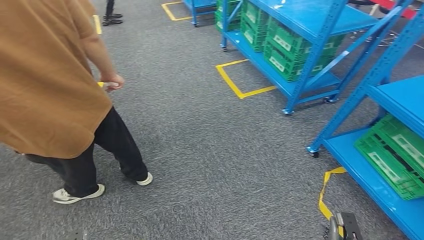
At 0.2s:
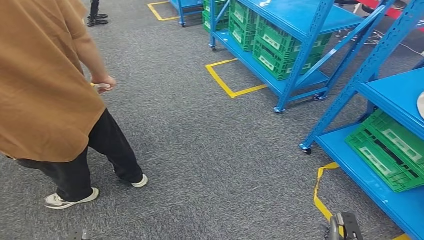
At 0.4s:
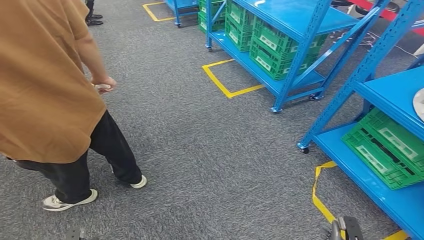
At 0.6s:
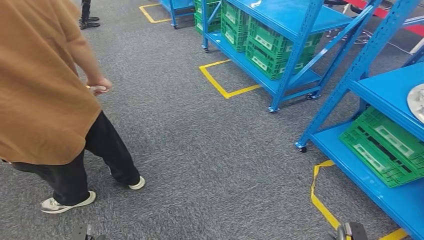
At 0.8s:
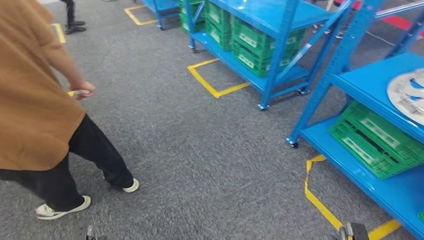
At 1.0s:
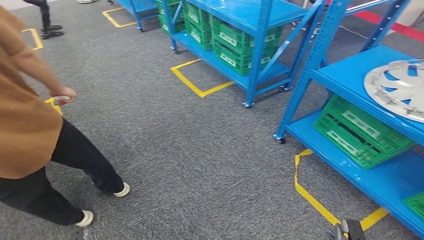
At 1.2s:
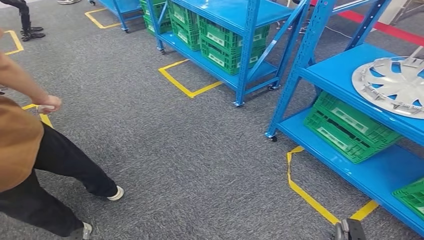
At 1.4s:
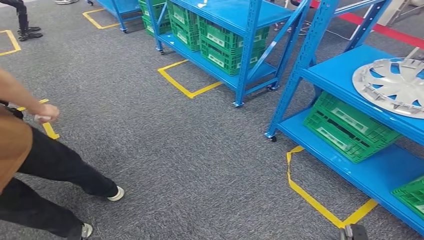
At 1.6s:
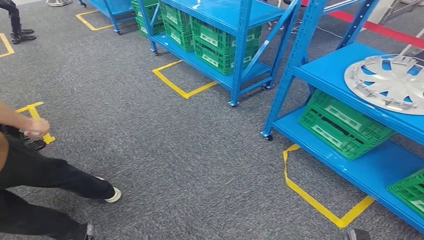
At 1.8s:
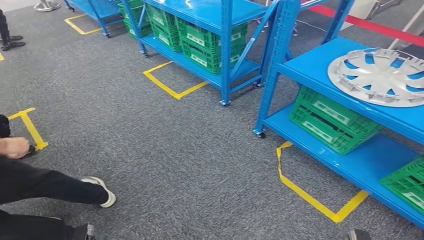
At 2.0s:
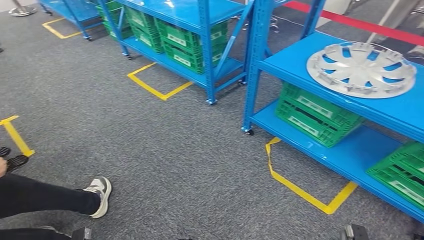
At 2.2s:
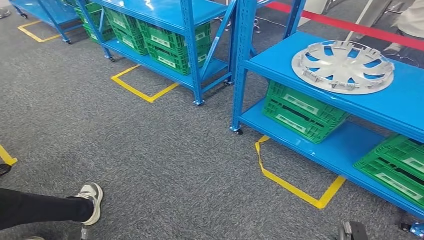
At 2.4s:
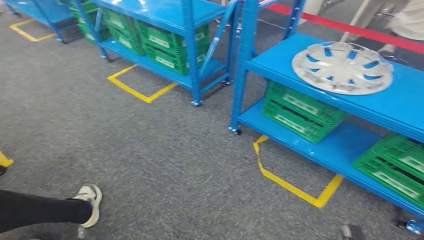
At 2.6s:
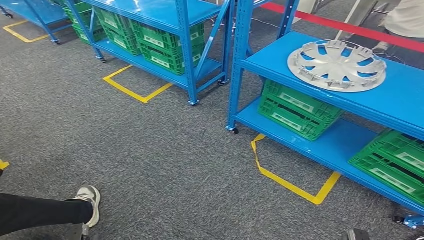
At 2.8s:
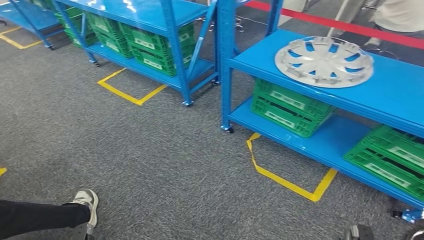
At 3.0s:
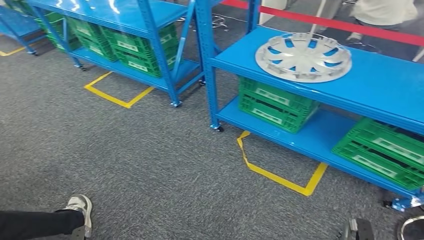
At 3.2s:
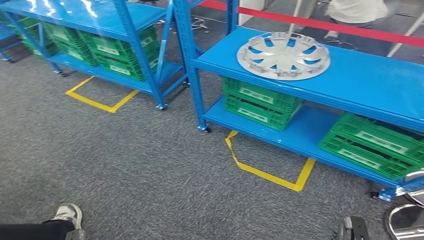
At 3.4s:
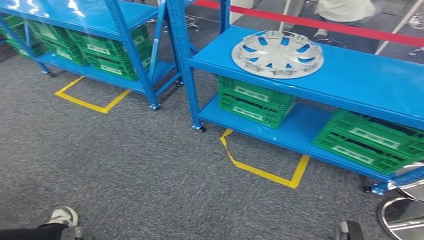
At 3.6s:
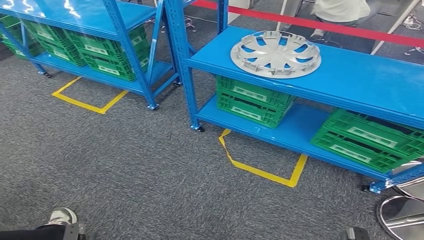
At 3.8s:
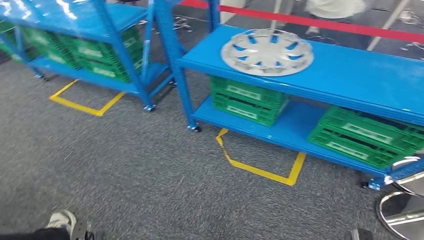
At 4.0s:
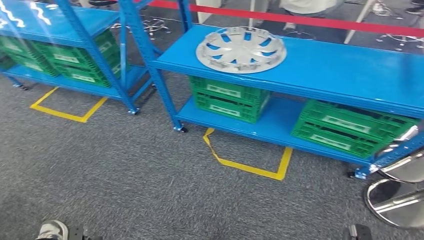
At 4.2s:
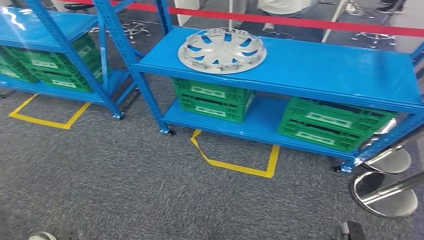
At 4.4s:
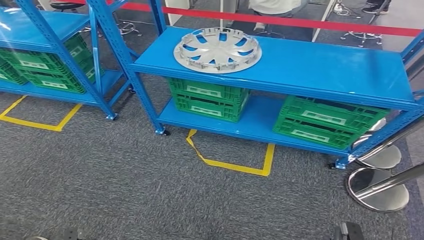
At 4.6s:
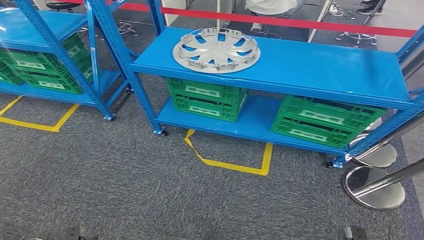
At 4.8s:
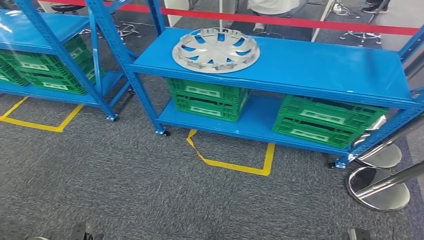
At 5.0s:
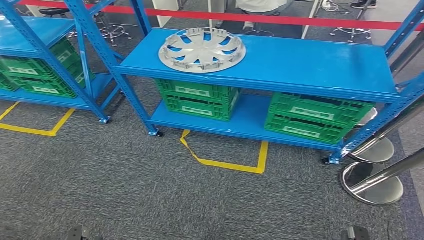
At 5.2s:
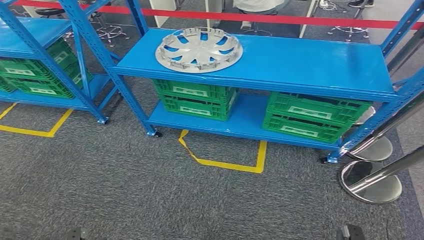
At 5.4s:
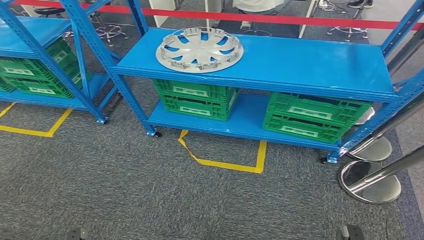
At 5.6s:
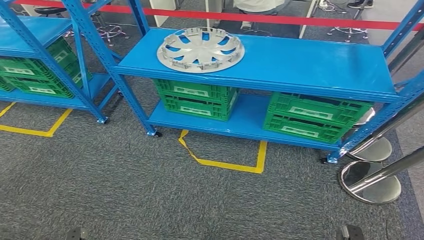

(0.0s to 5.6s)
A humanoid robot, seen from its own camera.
Step, 0.0s - 5.6s: Move to the initial position at the workbench.
